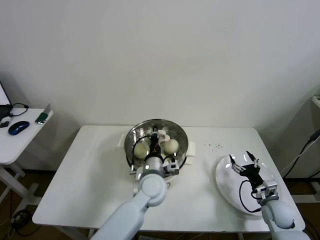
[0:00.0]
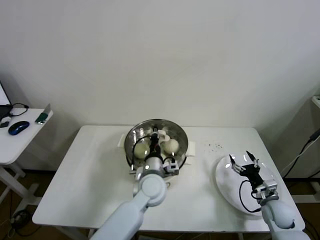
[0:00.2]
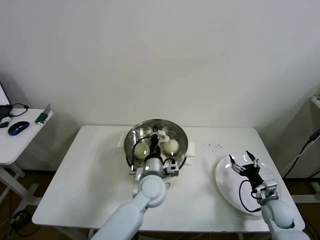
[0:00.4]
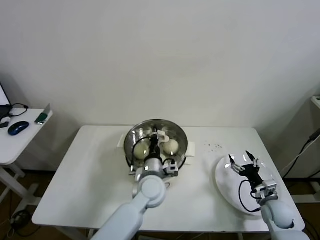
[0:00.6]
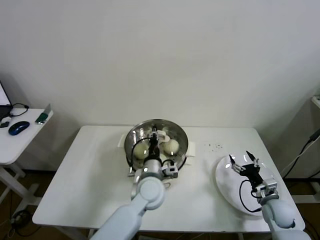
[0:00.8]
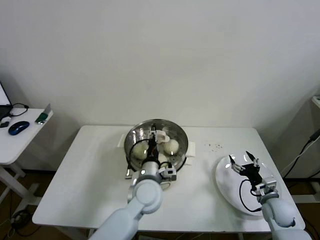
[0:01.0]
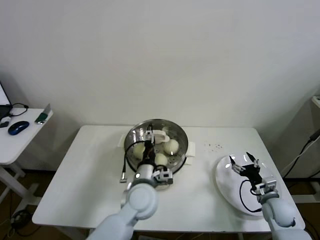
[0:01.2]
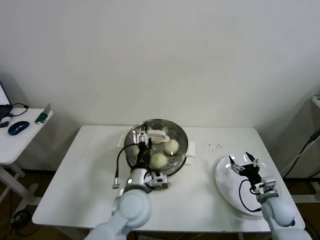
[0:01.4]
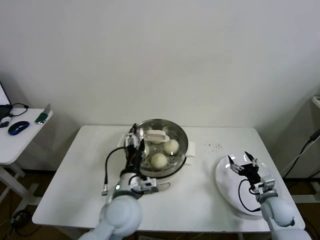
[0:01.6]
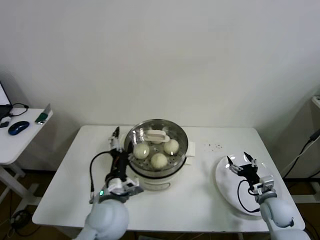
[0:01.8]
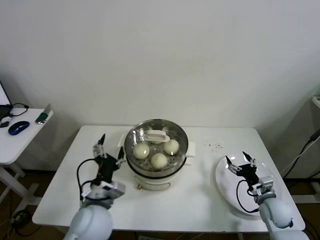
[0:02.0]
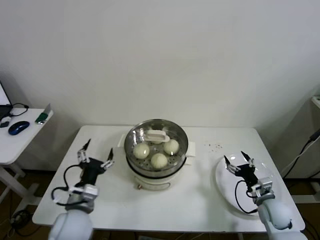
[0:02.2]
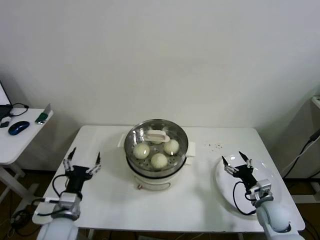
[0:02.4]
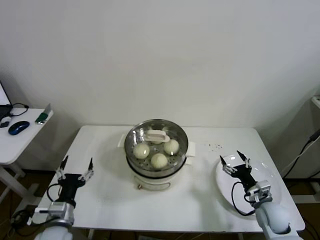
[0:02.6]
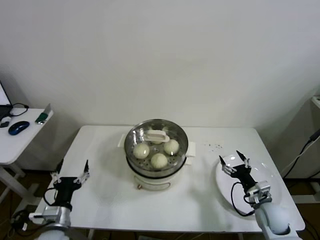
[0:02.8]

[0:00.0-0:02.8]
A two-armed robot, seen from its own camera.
0:00.0 to 0:01.4: The left gripper is displaced backward by roughly 5 cm, and opens its fingers.
0:01.4 to 0:02.8: The left gripper travels to the left by about 25 cm.

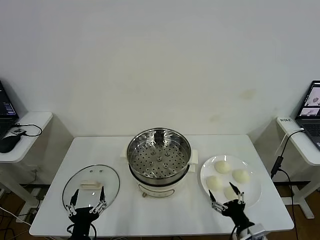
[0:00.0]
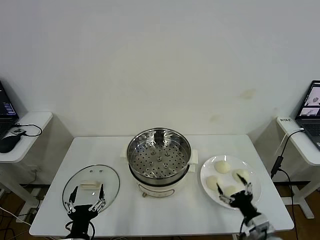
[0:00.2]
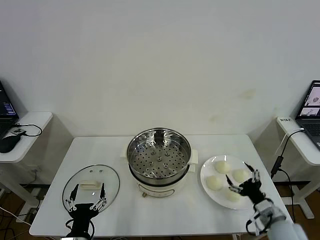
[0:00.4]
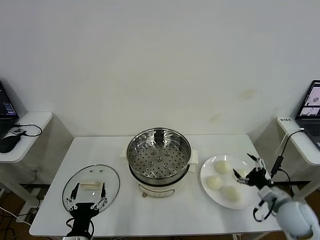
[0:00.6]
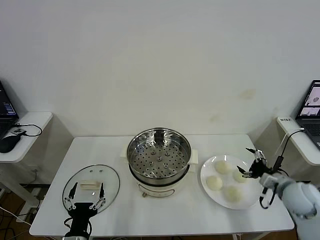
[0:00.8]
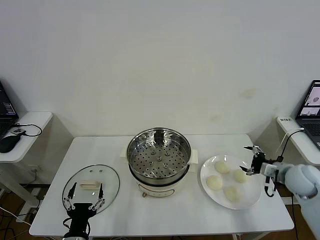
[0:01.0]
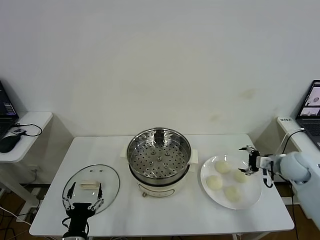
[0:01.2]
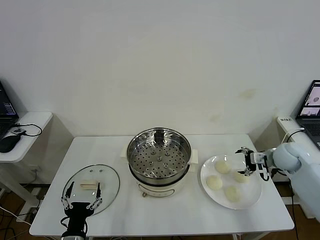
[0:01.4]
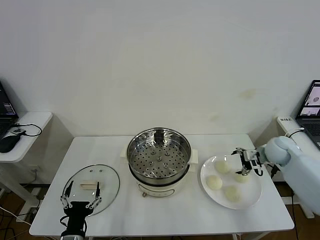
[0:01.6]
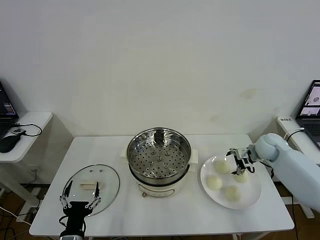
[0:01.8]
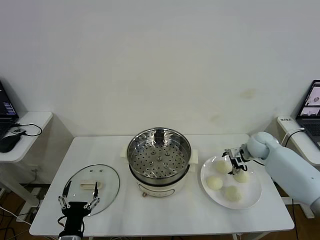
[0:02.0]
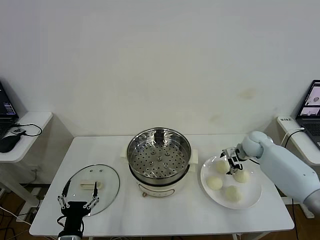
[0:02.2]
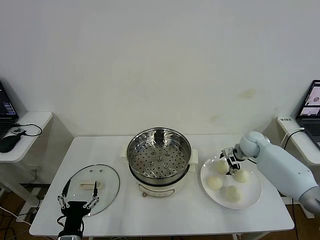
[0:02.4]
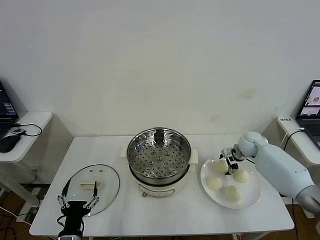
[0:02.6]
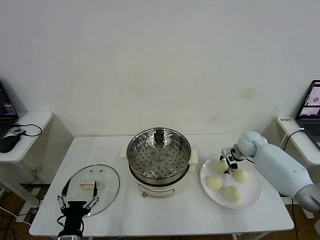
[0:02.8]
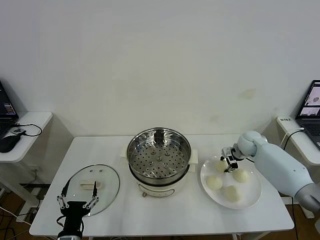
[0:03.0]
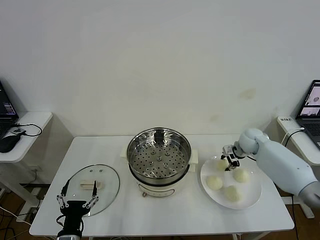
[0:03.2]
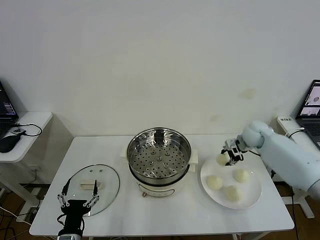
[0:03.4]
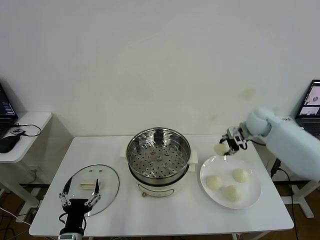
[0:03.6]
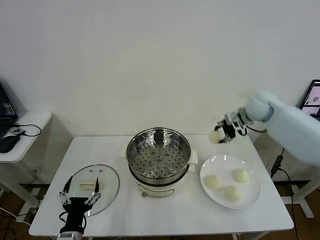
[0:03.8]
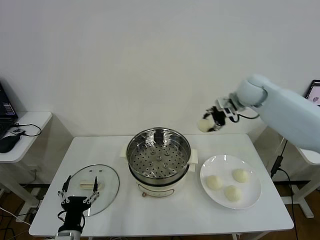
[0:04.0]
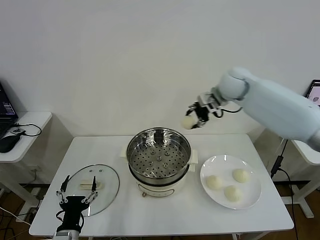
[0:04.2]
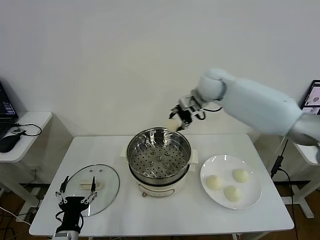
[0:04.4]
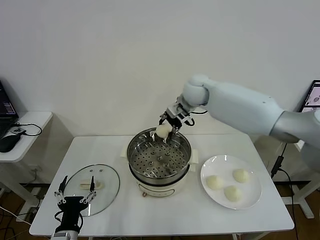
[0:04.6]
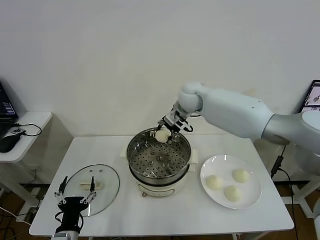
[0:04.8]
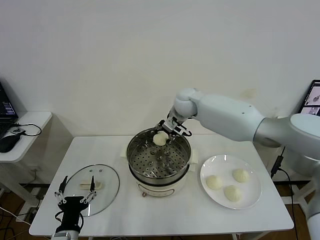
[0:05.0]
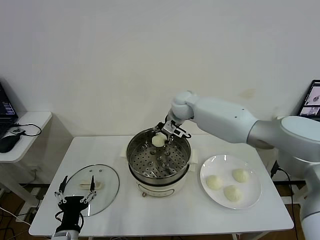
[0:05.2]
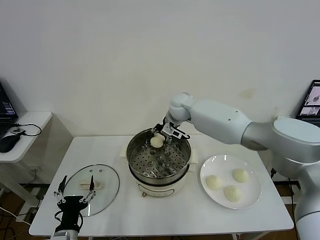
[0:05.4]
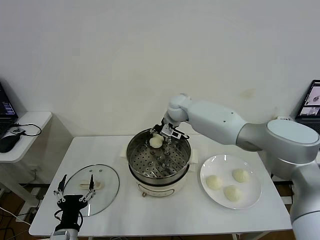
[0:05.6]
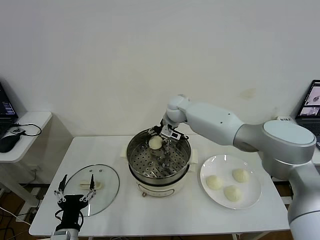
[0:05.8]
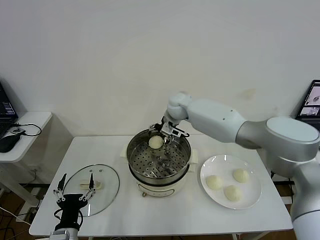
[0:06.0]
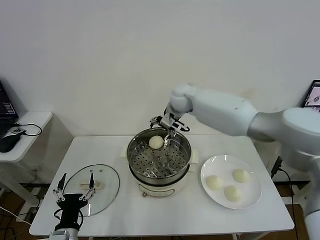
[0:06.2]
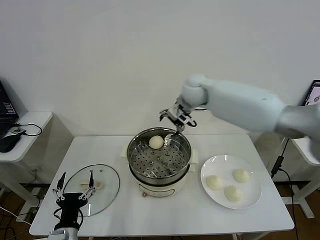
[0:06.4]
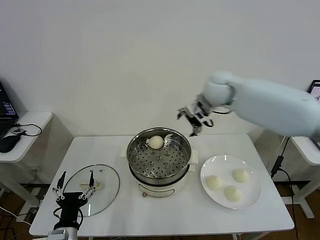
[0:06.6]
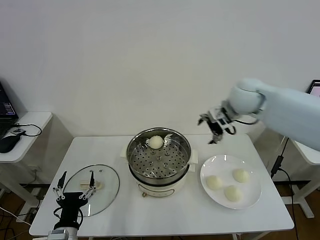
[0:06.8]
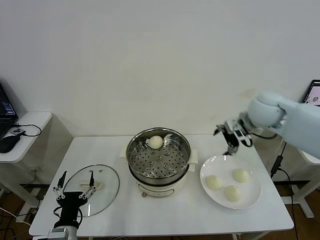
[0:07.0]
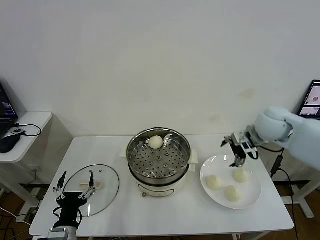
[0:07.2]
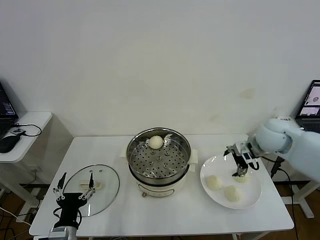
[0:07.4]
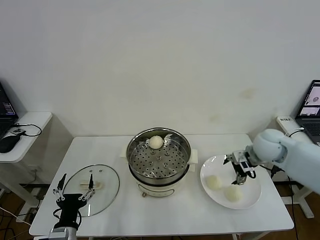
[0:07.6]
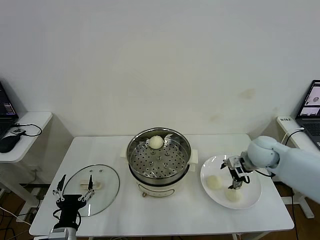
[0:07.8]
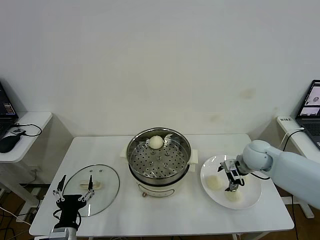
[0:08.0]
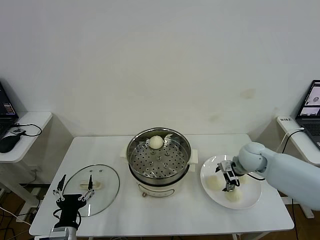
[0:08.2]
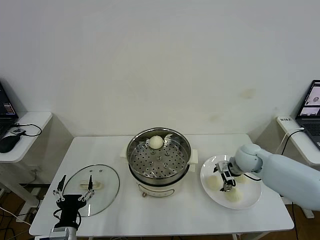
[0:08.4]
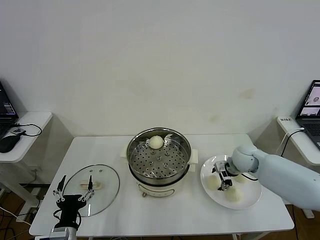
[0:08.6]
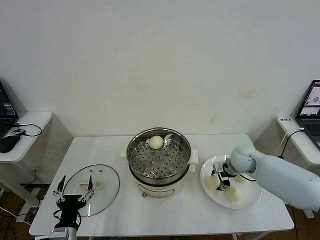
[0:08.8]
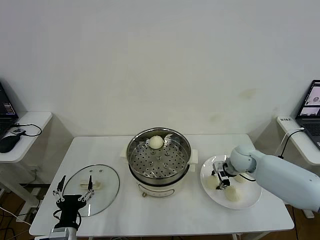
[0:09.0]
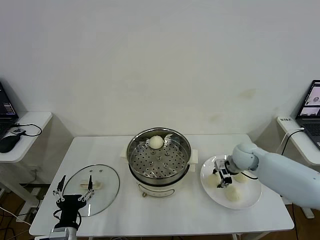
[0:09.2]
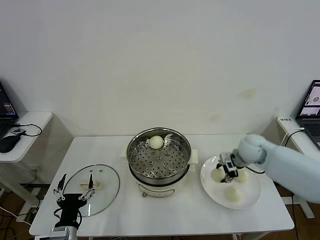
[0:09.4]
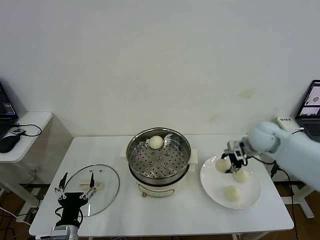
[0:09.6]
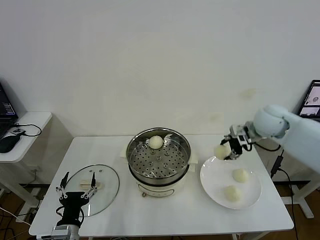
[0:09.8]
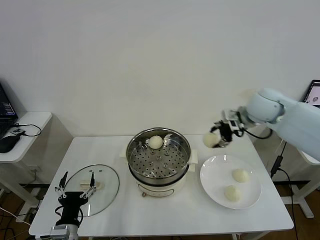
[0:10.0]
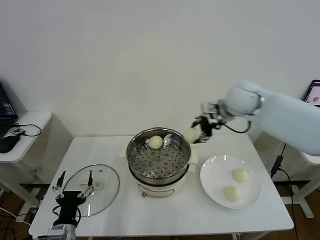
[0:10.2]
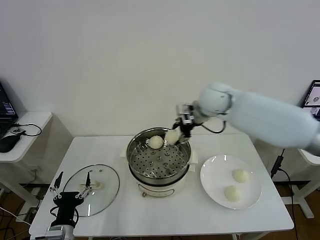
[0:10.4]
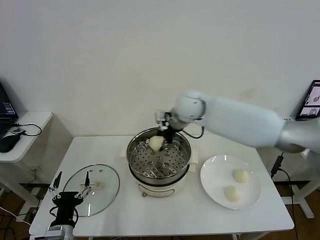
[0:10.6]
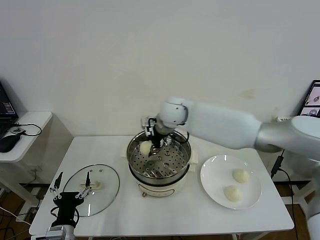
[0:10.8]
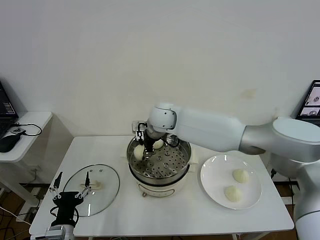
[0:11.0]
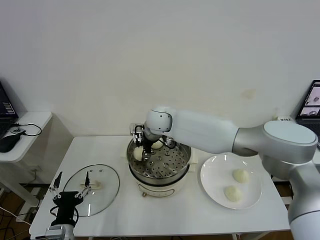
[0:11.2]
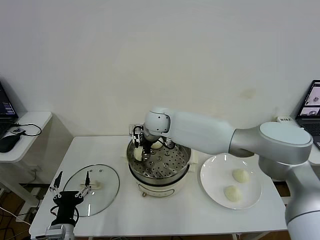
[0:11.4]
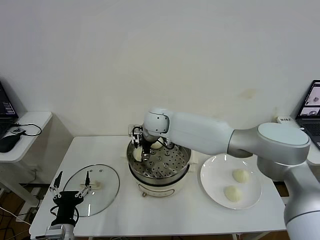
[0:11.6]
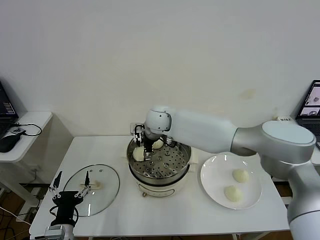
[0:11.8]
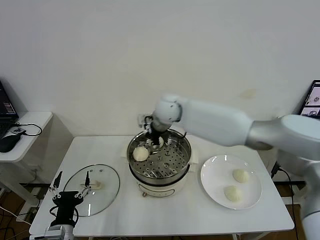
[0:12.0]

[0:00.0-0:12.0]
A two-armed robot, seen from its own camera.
Step, 0:00.0 to 0:02.8: Grasp the baozi in the plate with right gripper.
Step, 0:03.2 to 0:05.8: Place the baozi on the steamer with right gripper.
Step, 0:06.0 to 0:09.0: Grasp the baozi in the plate with right gripper.
Step, 0:09.2 to 0:11.8: Place the baozi on the steamer with right gripper.
0:01.6 to 0:03.0: The right gripper heads forward and to the left, covering about 10 cm, and closes.
0:03.0 to 0:04.4: The right gripper goes approximately 30 cm upward and to the left.
0:04.4 to 0:06.0: The right gripper is displaced downward and to the left by approximately 10 cm, and opens its fingers.
0:06.0 to 0:07.6: The right gripper travels to the right and backward by approximately 30 cm.
0:07.6 to 0:09.0: The right gripper goes approximately 10 cm downward, and closes.
0:09.0 to 0:10.4: The right gripper shifts roughly 25 cm upward and to the left.
0:10.4 to 0:12.0: The right gripper is displaced to the left by roughly 10 cm, and opens up.

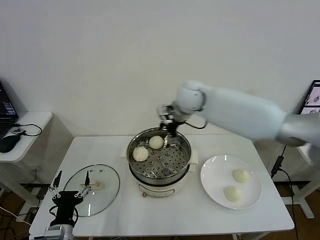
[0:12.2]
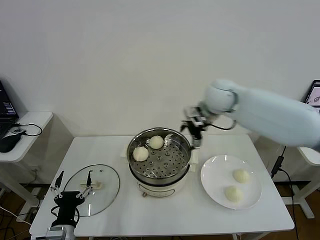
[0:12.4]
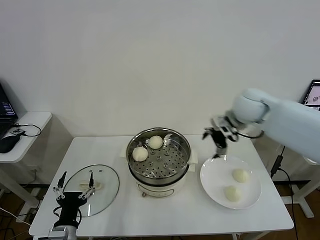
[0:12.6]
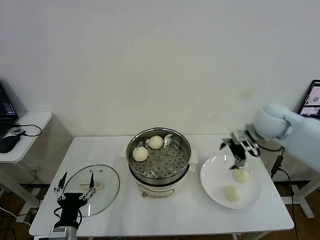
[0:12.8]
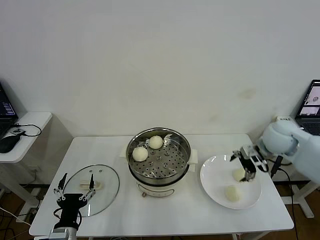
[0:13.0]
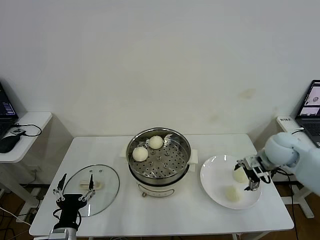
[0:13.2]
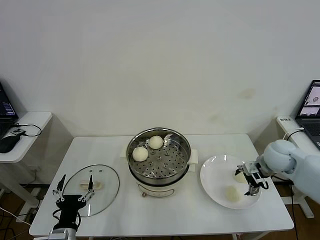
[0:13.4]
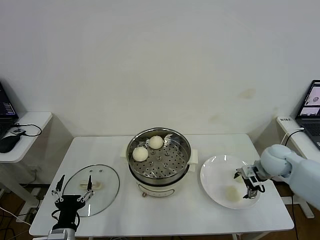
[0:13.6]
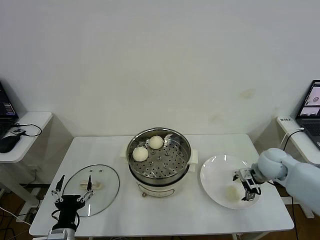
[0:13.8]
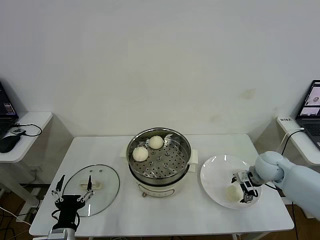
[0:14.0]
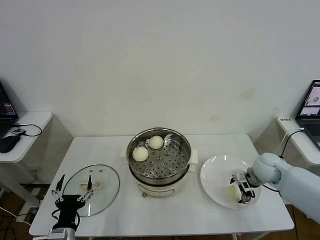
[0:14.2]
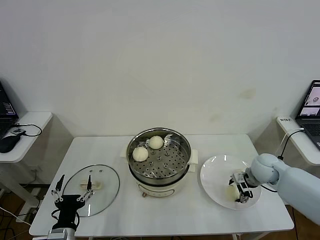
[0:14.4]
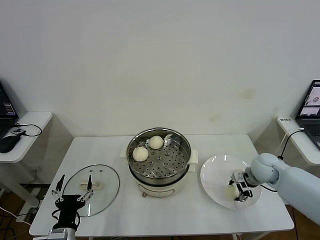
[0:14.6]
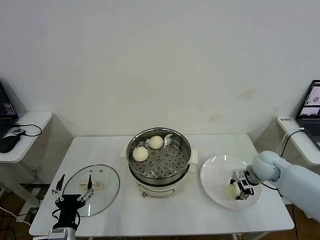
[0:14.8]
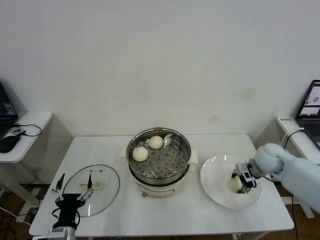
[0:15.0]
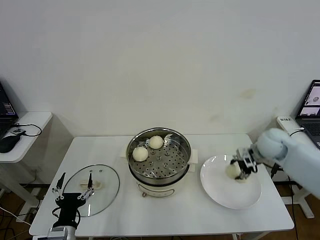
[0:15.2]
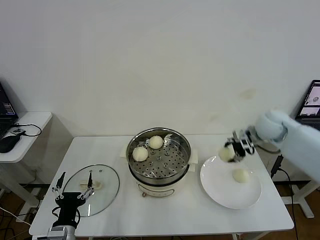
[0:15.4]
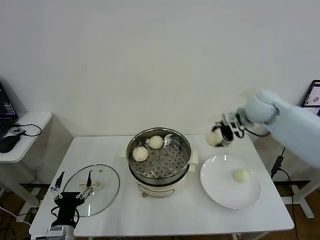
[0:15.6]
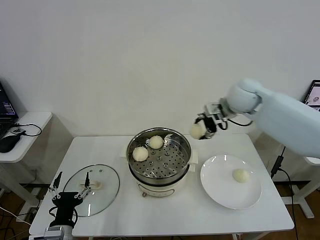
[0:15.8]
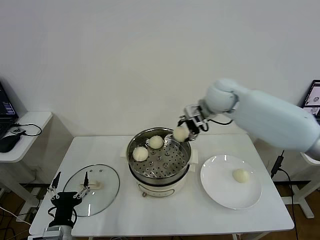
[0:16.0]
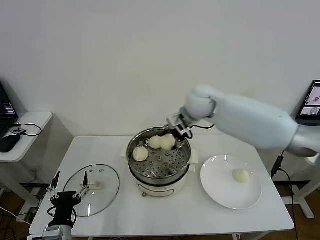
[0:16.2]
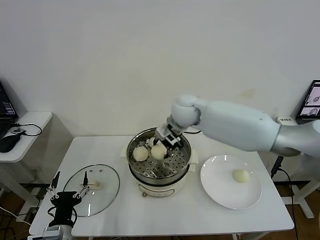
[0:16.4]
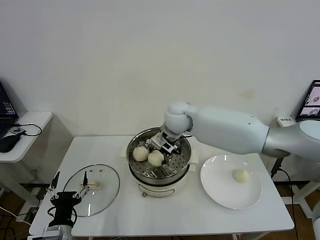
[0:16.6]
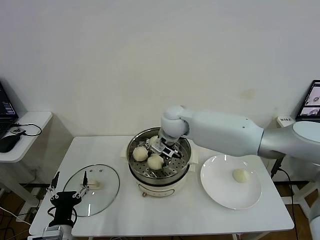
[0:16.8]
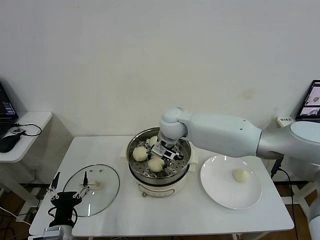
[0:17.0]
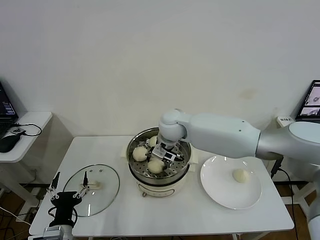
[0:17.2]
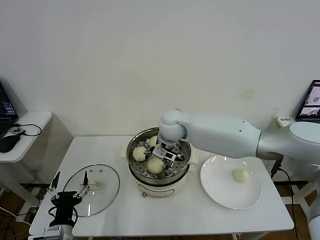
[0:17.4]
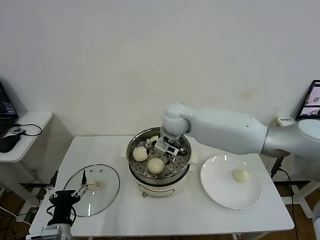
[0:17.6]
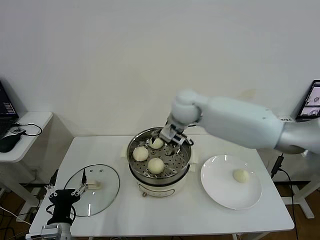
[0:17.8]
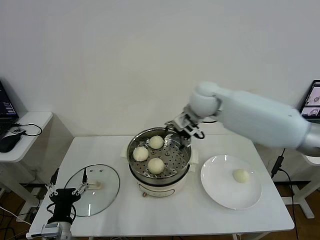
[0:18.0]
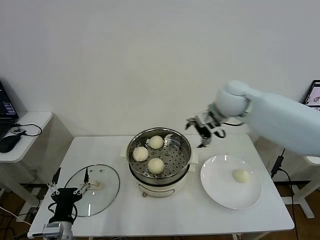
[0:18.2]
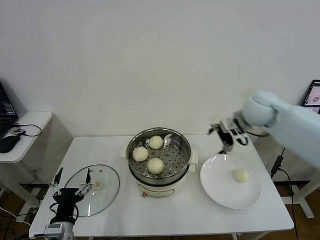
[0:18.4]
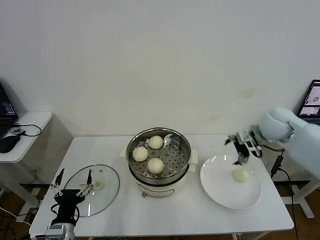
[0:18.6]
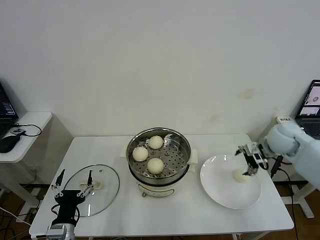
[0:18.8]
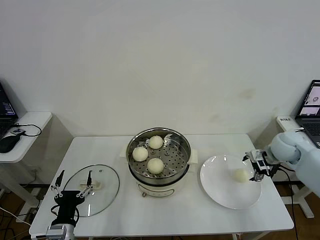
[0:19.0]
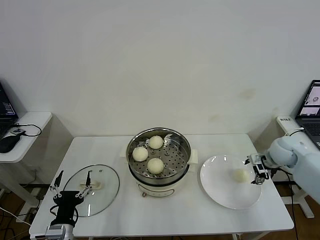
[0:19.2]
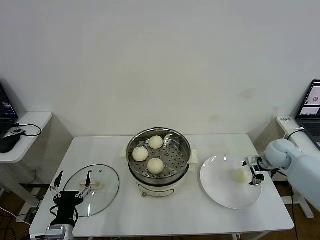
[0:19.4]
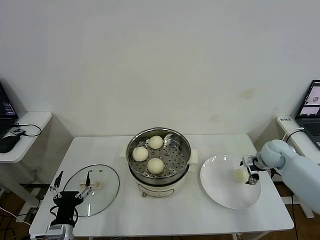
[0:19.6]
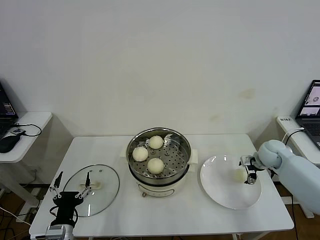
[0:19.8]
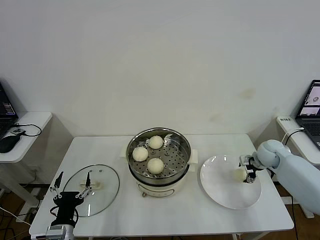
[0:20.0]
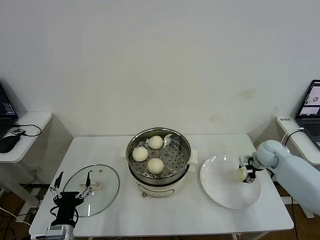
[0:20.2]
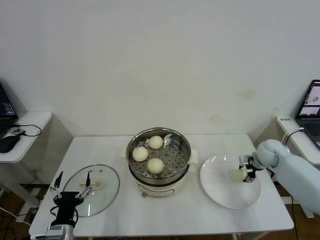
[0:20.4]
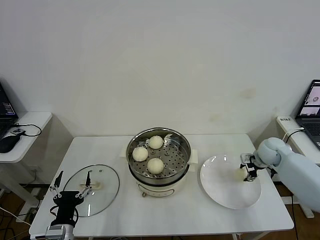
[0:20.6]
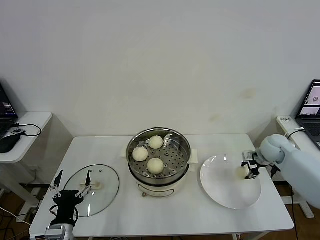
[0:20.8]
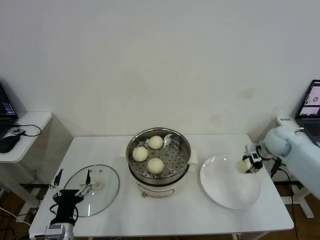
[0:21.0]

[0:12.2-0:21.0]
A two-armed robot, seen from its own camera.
Step, 0:12.2 to 0:14.6: Grasp the baozi in the plate with right gripper.
Step, 0:14.8 to 0:17.4: Place the baozi on the steamer with right gripper.
Step, 0:17.6 to 0:20.4: Grasp the baozi in the plate with right gripper.
0:12.2 to 0:13.6: The right gripper shifts some 35 cm to the right, downward and backward.
0:13.6 to 0:15.2: The right gripper is displaced upward by about 5 cm, and closes its fingers.
0:15.2 to 0:16.6: The right gripper moves to the left, some 30 cm.
0:16.6 to 0:18.0: The right gripper is displaced to the right and upward by approximately 10 cm, and opens.
0:18.0 to 0:19.6: The right gripper moves to the right and downward, some 35 cm.
0:19.6 to 0:21.0: The right gripper heads upward, covering some 5 cm, and closes.
